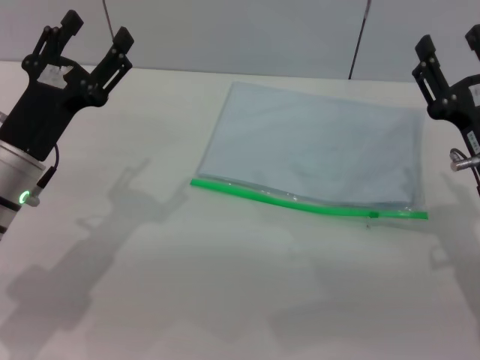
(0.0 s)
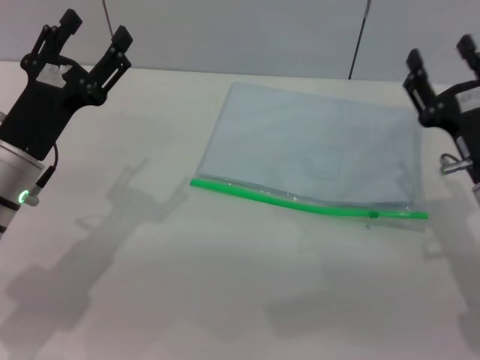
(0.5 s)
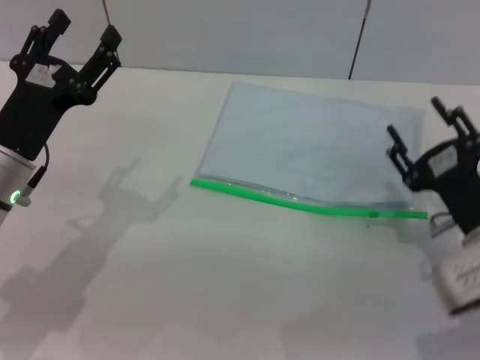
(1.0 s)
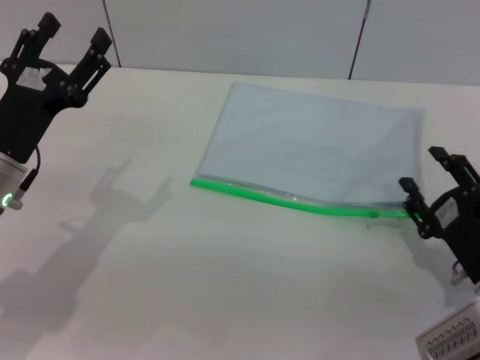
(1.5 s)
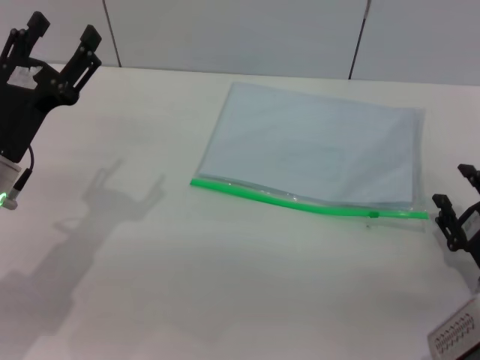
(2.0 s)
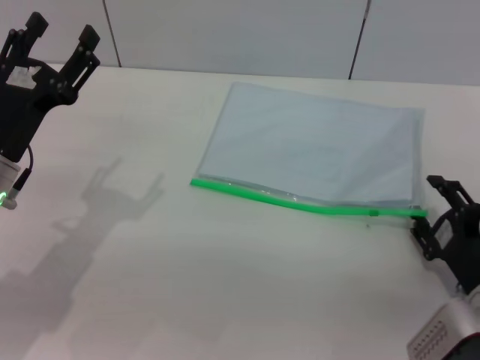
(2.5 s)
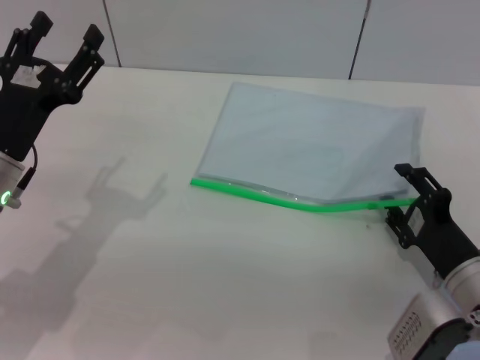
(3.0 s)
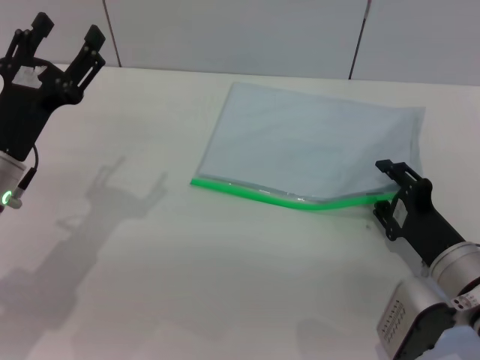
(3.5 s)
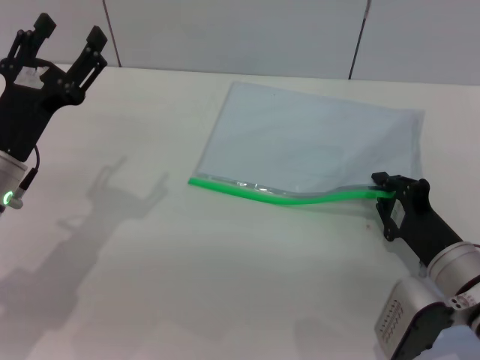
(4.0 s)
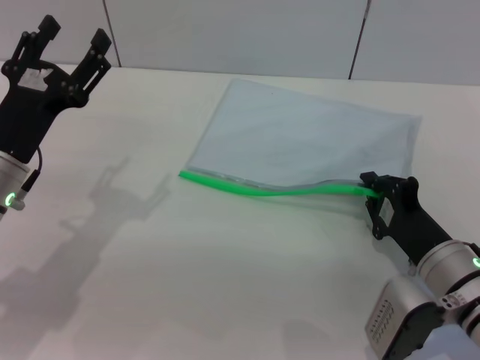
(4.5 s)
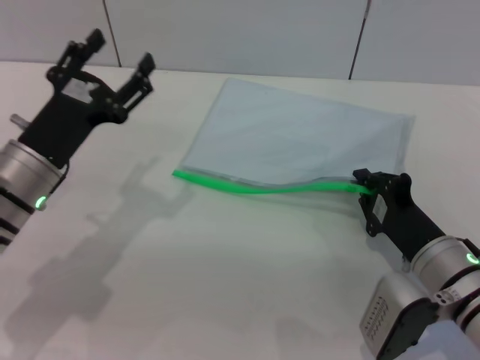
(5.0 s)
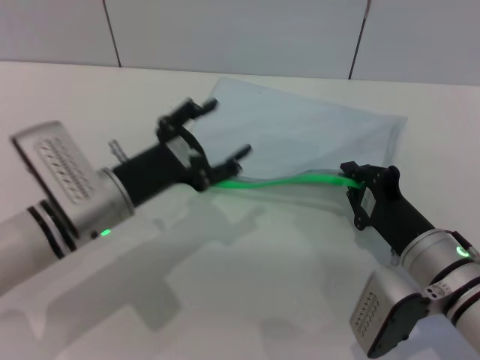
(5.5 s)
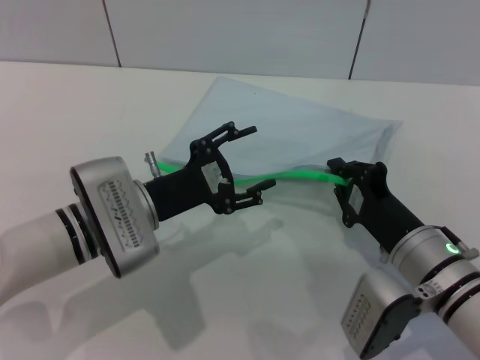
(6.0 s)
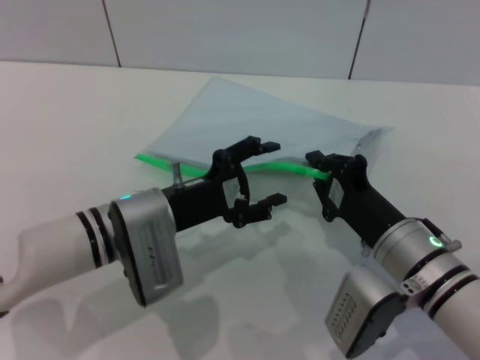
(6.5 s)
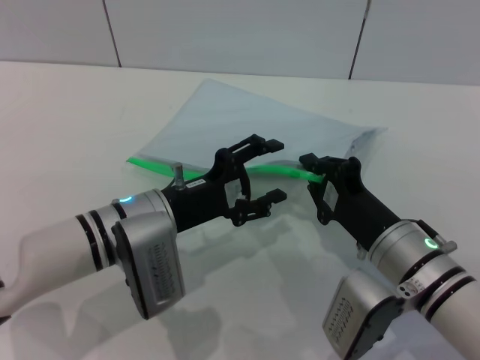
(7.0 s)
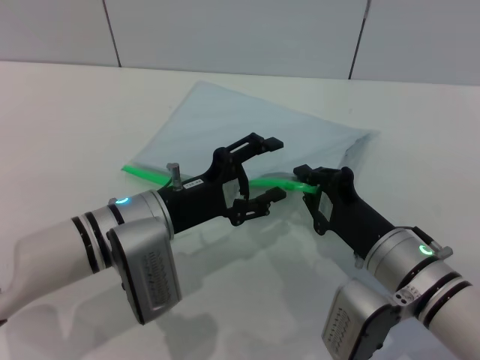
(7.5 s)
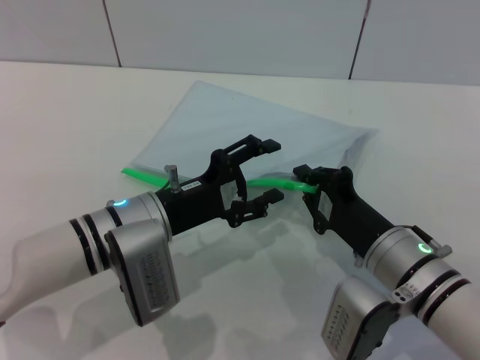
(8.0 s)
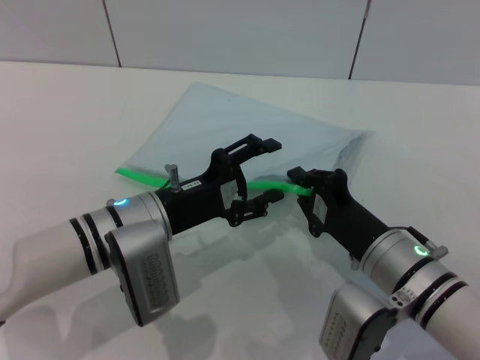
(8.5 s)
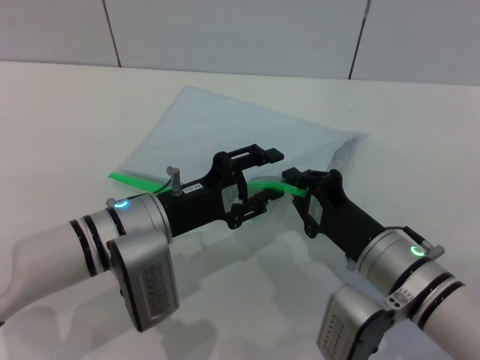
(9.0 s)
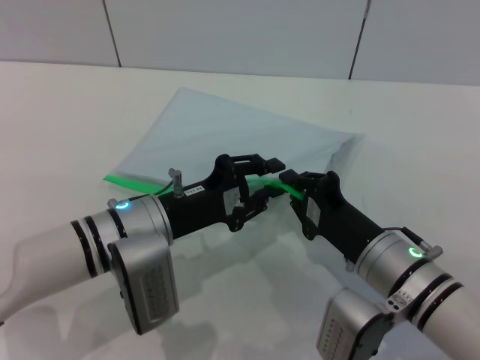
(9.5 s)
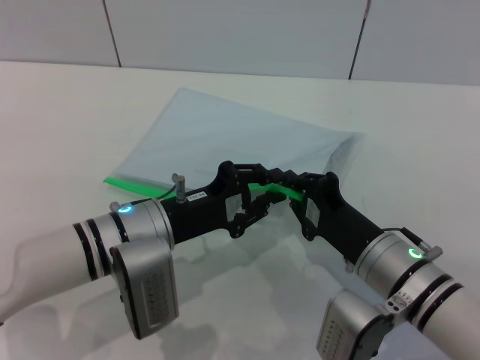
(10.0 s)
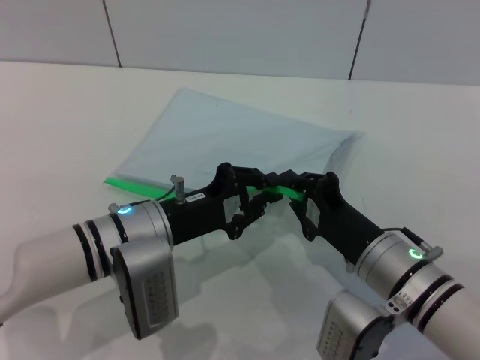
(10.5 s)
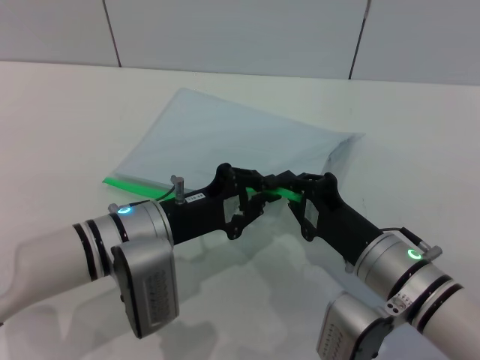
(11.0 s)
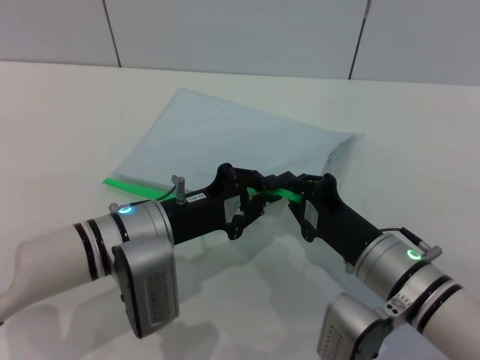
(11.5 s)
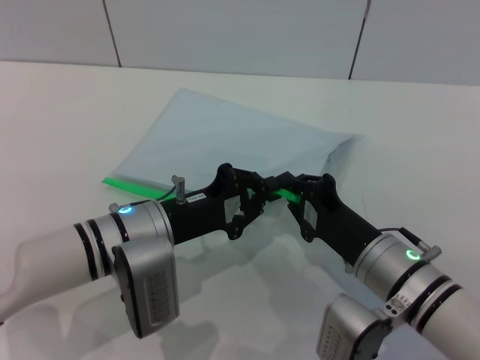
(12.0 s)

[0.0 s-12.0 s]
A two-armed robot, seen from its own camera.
Step, 0.0 to 5.0 s: Pick up the transparent plastic bag with the right gripper.
0.0 to 2.0 s: The right gripper travels downward and backward by approximately 10 cm.
2.0 to 4.0 s: The right gripper is displaced to the left by approximately 5 cm, and closes its fingers.
4.0 to 6.0 s: The left gripper shifts approximately 10 cm to the right.
8.0 to 10.0 s: The left gripper closes its fingers.
10.0 to 12.0 s: The two grippers keep their place.

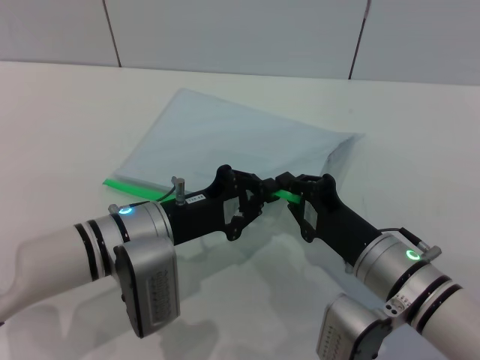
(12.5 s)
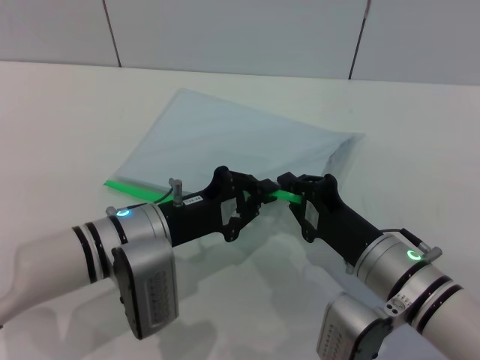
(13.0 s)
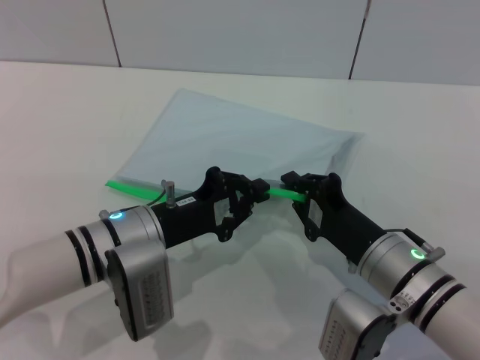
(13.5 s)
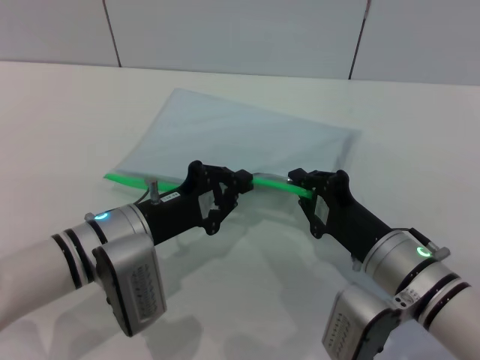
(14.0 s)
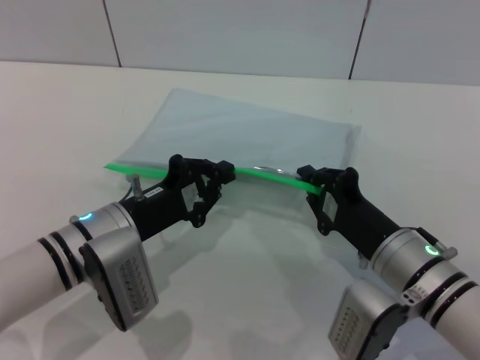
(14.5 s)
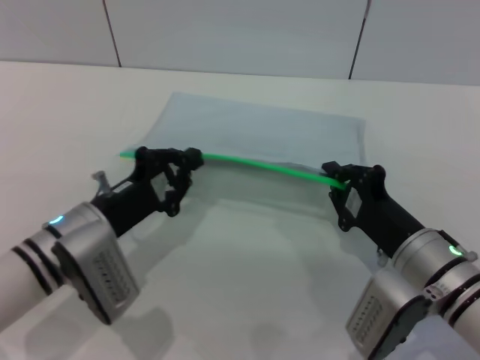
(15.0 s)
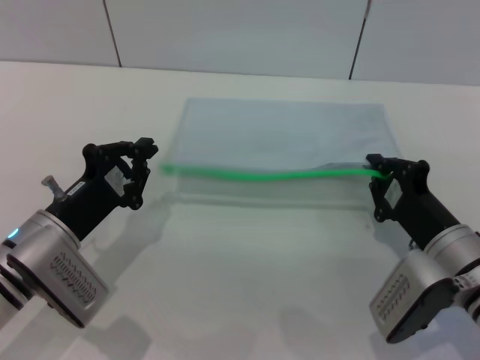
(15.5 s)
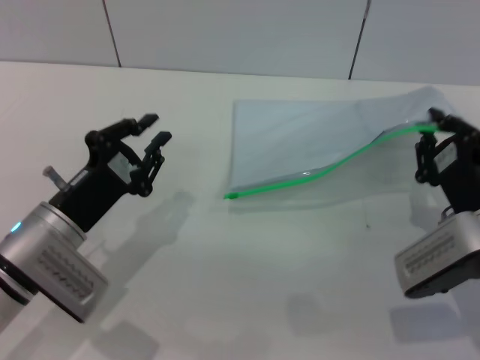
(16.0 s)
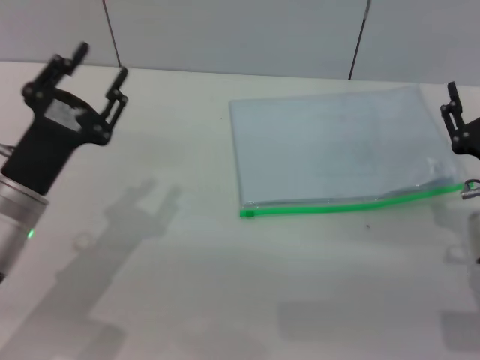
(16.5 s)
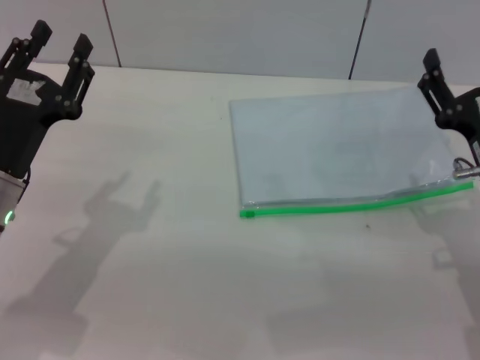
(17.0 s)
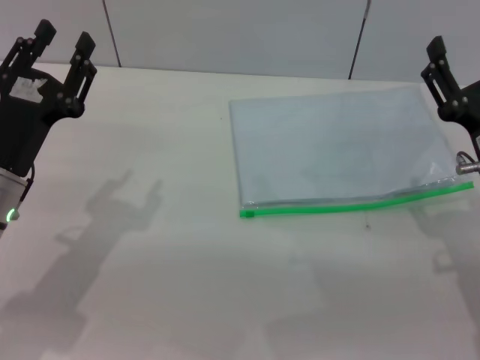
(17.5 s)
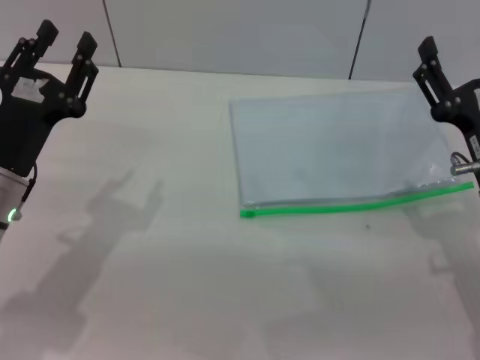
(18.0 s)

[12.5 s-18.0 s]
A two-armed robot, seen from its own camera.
Step, 12.5 to 15.5 s: Pulling up the zipper on the transparent plastic bag with the left gripper to close it.
Step, 16.0 to 16.5 s: Place the transparent plastic bag.
14.5 to 16.0 s: The right gripper moves to the right, roughly 5 cm.
16.0 to 18.0 s: The right gripper opens. The left gripper moves roughly 5 cm, and opens its fingers.

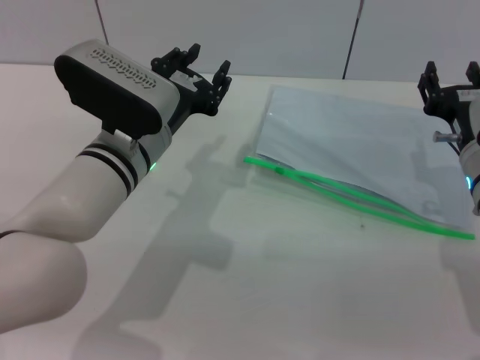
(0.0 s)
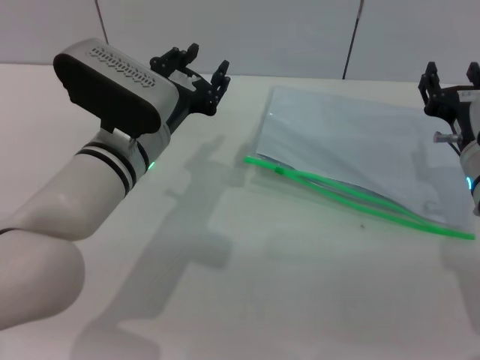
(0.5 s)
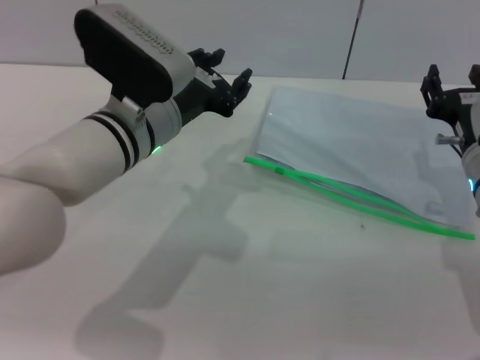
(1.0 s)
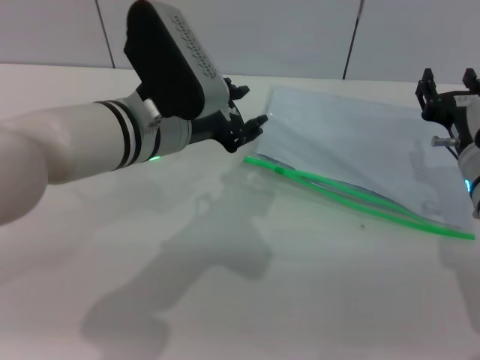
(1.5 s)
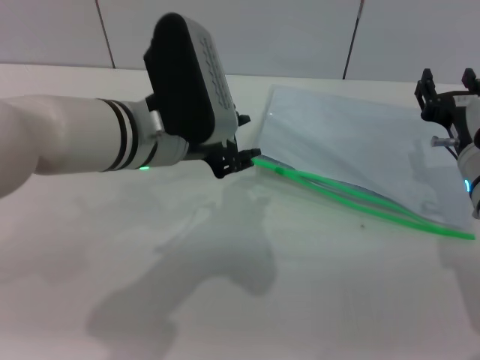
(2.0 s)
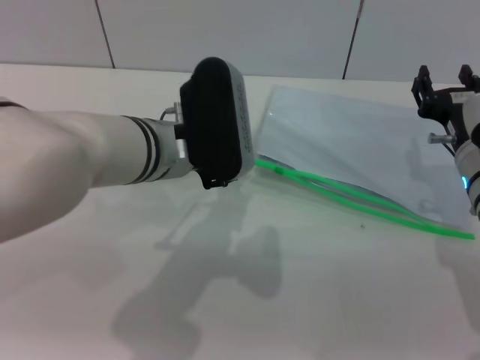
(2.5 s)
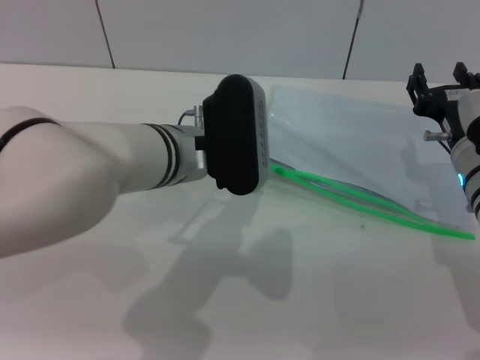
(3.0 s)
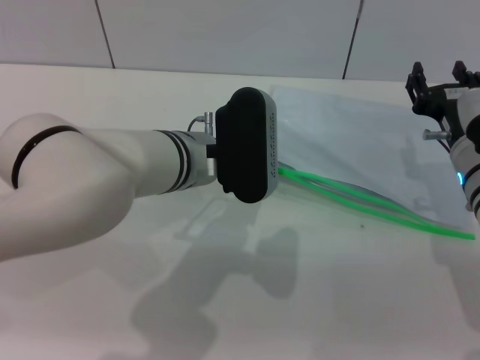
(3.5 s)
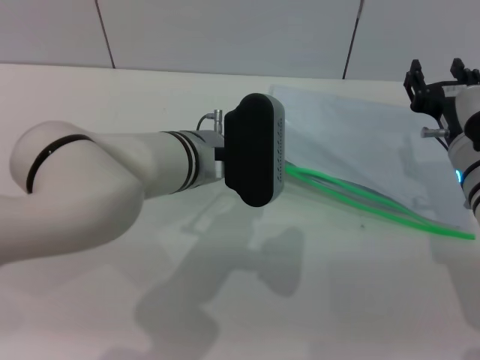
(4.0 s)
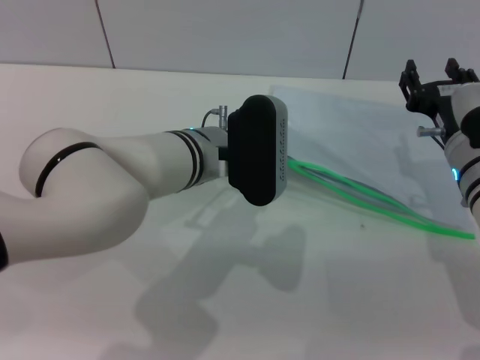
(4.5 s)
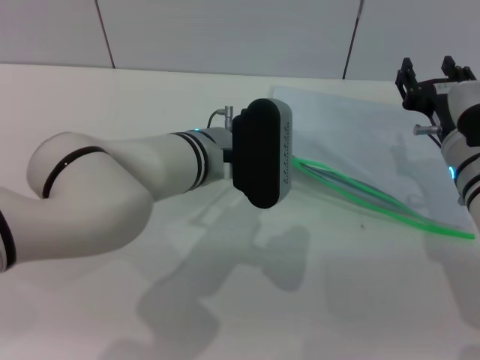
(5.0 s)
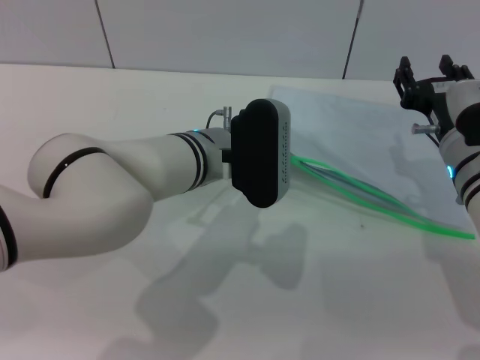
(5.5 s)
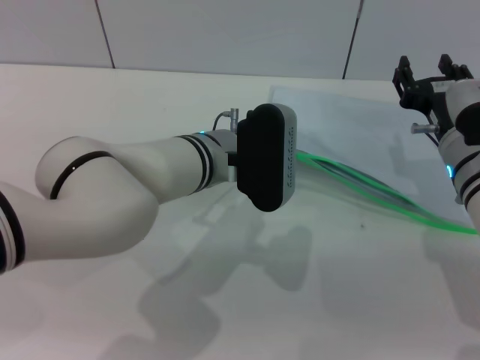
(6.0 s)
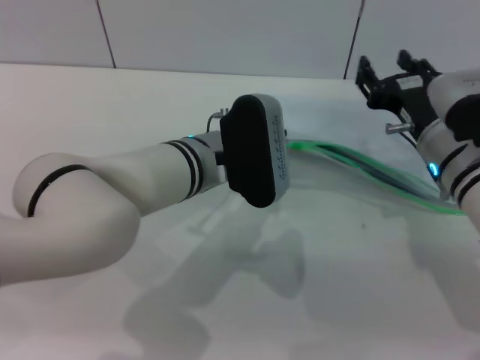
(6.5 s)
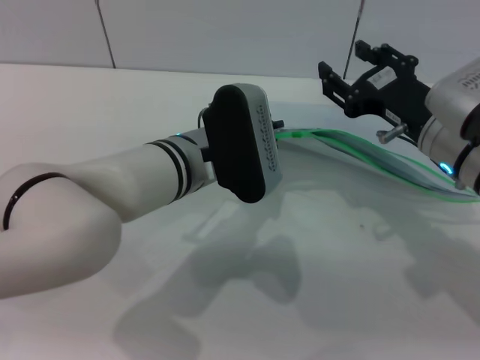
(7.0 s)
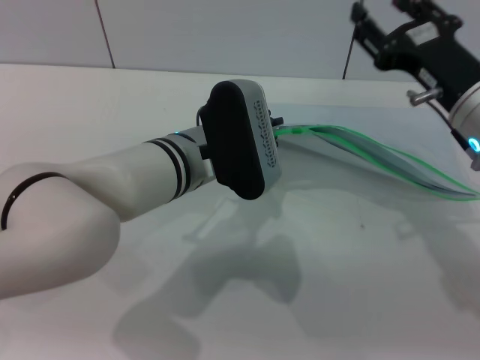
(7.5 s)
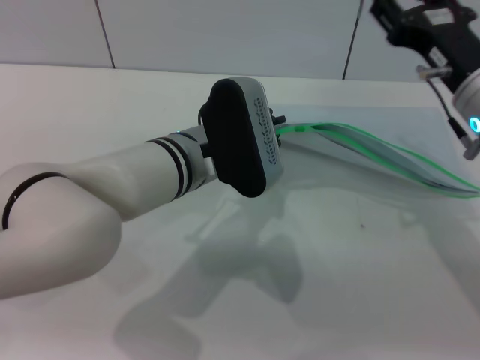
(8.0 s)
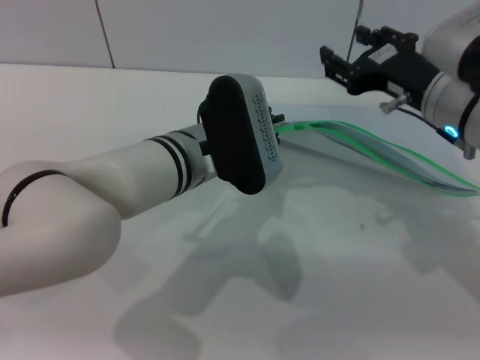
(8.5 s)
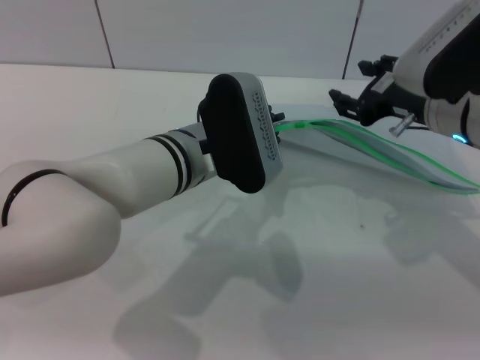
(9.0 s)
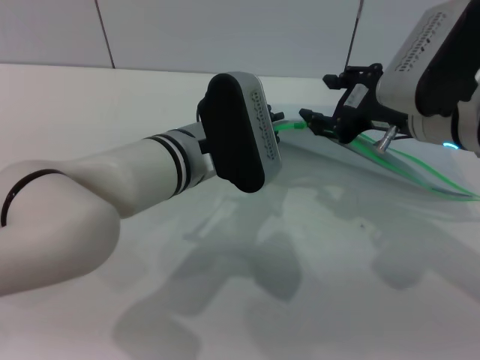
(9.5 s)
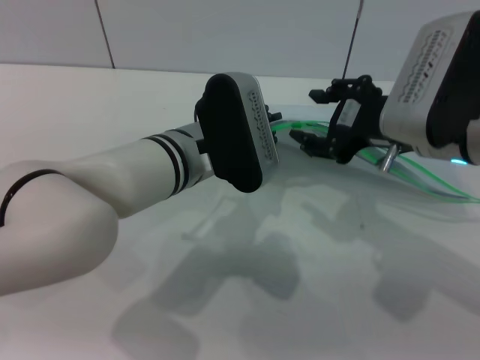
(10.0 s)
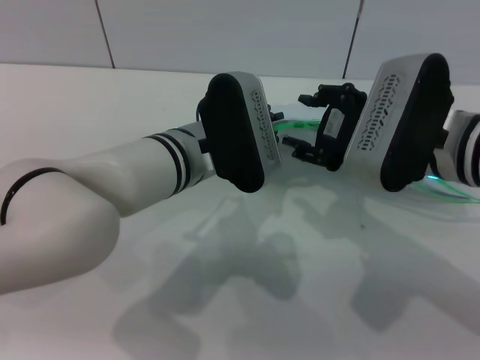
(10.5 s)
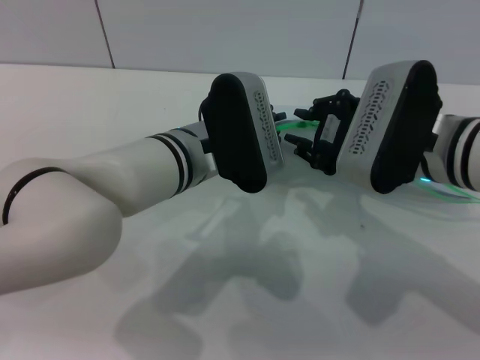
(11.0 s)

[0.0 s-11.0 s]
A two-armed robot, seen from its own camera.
Step, 0.0 to 6.5 s: Pick up the transparent plastic bag with the left gripper.
0.0 to 2.0 s: The left gripper is displaced upward by about 5 cm.
2.0 to 3.5 s: The left gripper changes place by roughly 5 cm.
3.5 to 5.5 s: The grippers make only small movements.
5.5 to 7.5 s: The left gripper closes up; the right gripper travels upward by roughly 10 cm.
9.0 to 11.0 s: The right gripper shifts by some 5 cm.
